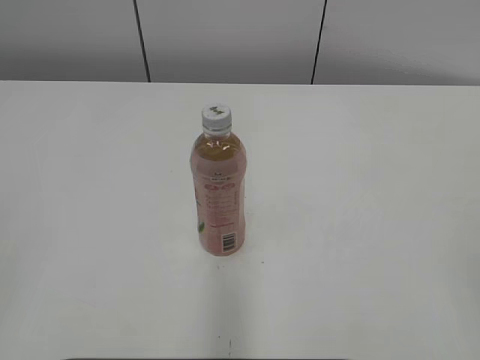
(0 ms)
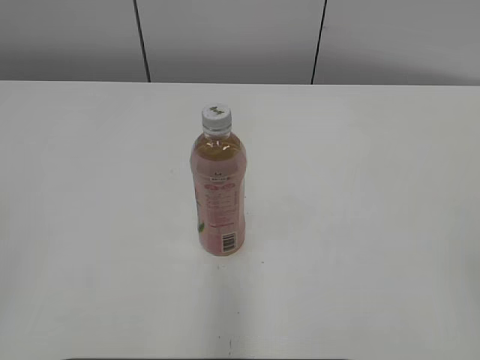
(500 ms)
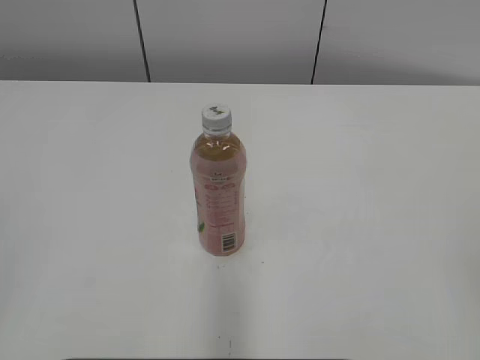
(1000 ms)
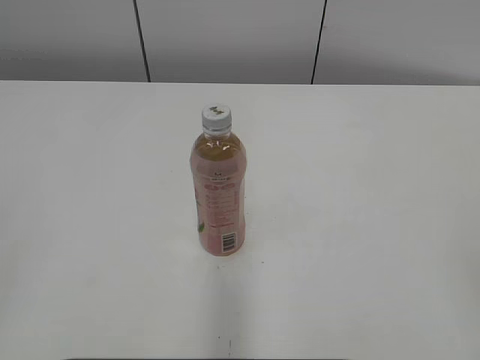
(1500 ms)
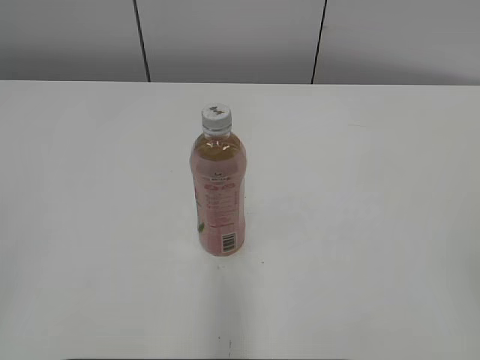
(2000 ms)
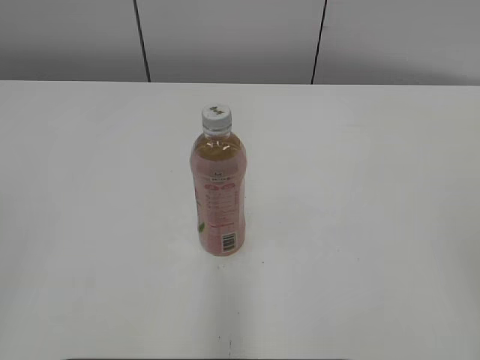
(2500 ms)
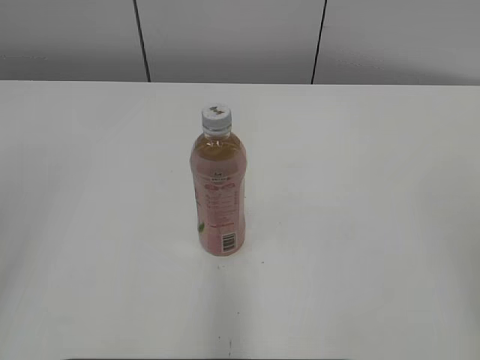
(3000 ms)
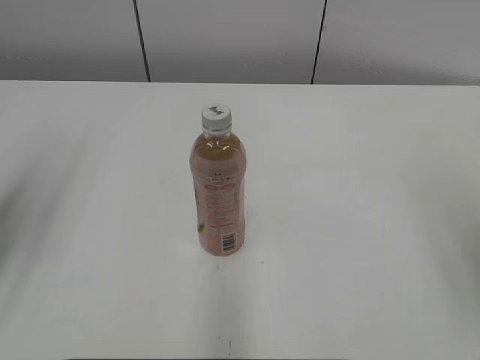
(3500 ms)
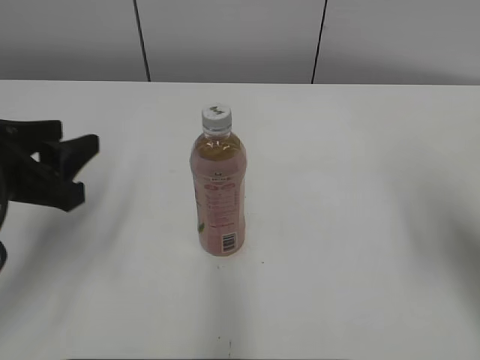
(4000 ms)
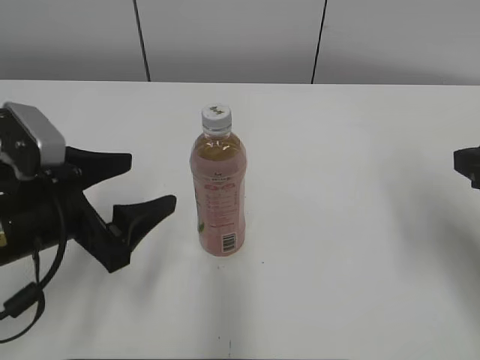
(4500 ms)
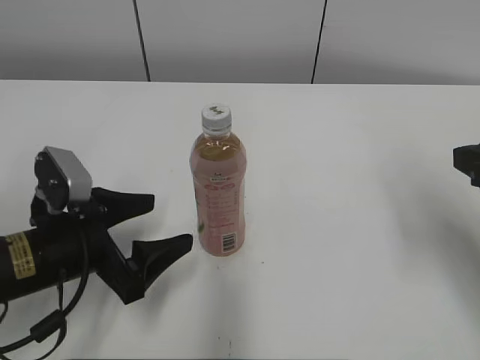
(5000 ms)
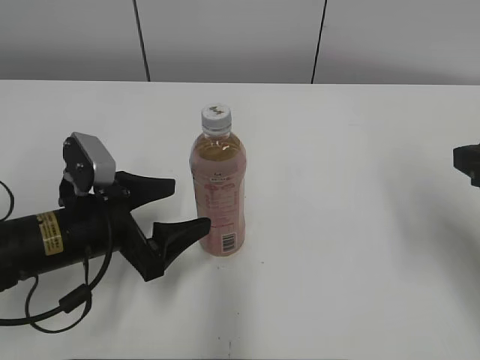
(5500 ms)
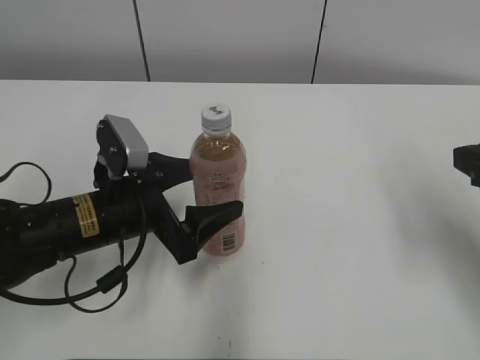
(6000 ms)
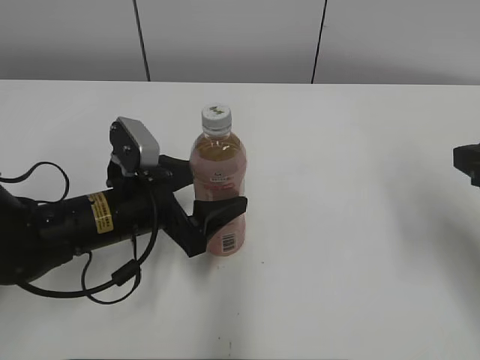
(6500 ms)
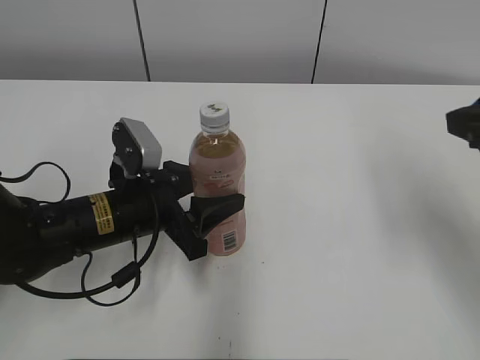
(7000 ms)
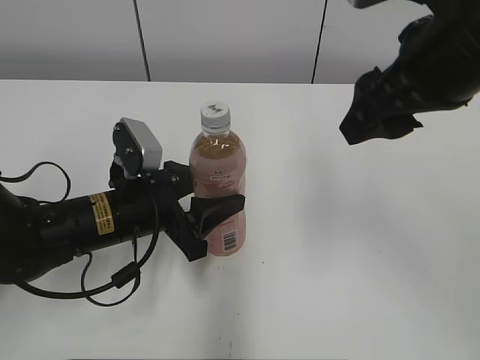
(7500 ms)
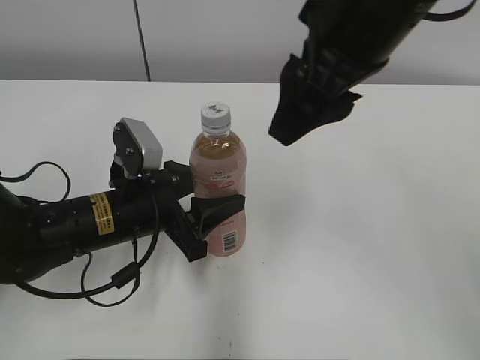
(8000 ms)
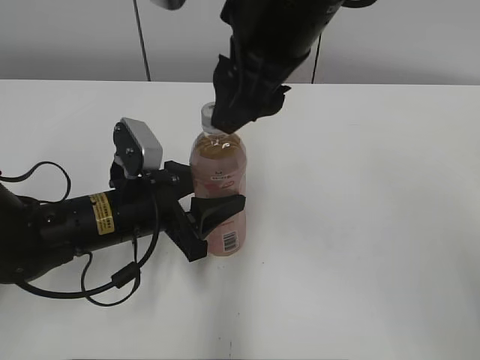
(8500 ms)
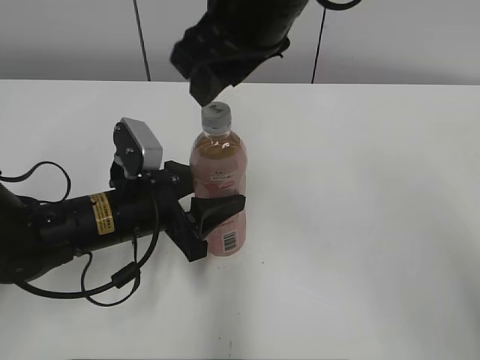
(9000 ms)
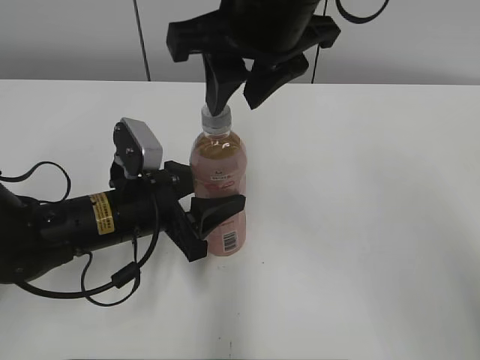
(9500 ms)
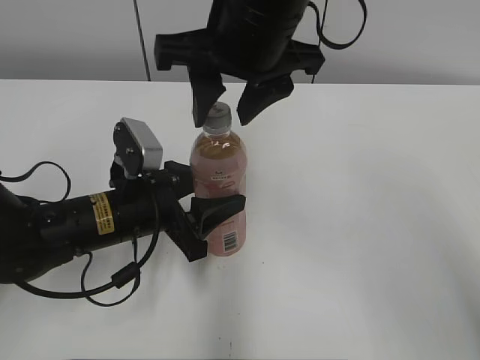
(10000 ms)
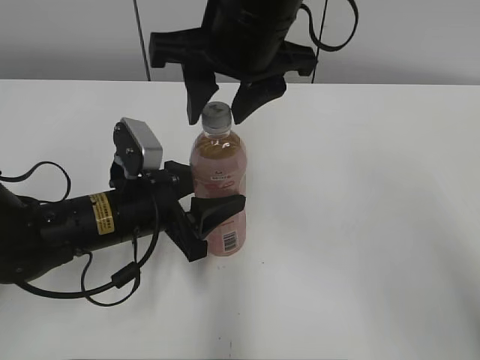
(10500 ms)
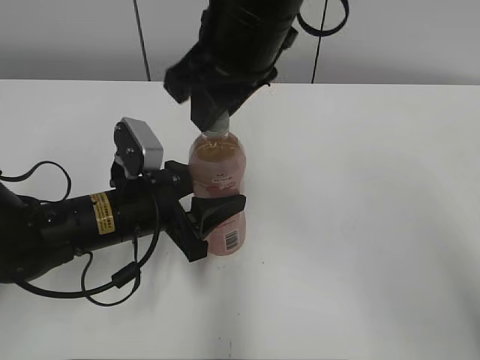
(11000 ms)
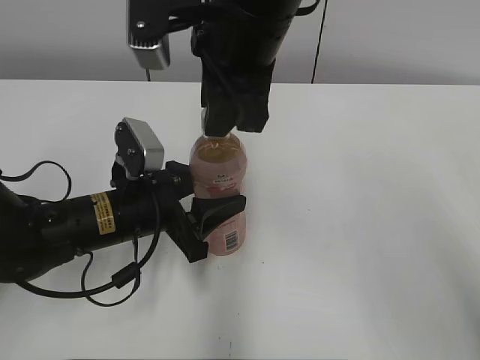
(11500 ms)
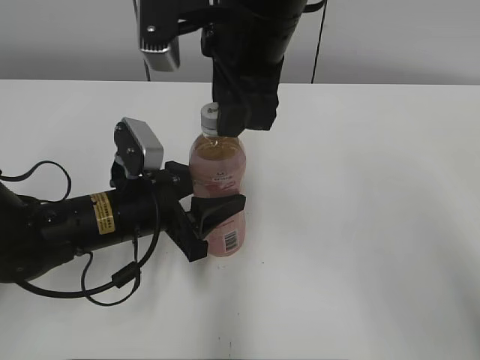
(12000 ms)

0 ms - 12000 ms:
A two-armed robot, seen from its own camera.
Step, 0 ms - 6500 ms: Grab the Peach Oolong Tea with the left hand.
2000 ms - 4000 ms: The left gripper heads forward and downward, covering about 25 cm. The right gripper goes some 20 cm forward.
4000 ms - 6000 ms: The left gripper is displaced to the right and downward by approximately 15 cm, and opens.
6000 ms - 8000 ms: The right gripper is displaced to the left and upward by roughly 20 cm. The left gripper closes its fingers.
8000 ms - 10000 ms: The right gripper shifts roughly 5 cm to the left.

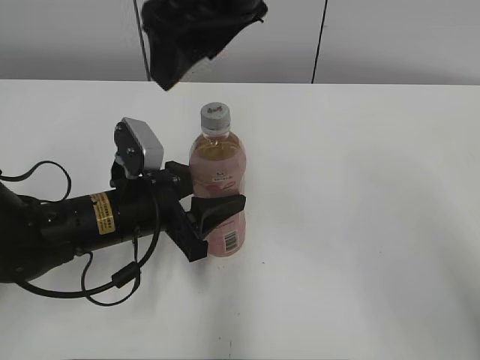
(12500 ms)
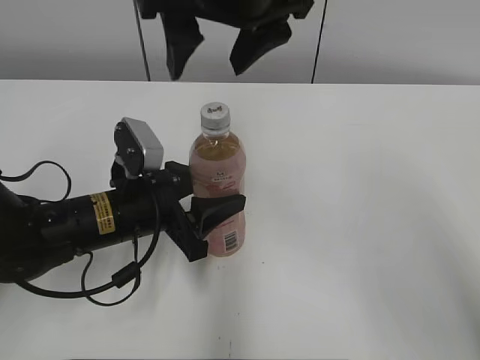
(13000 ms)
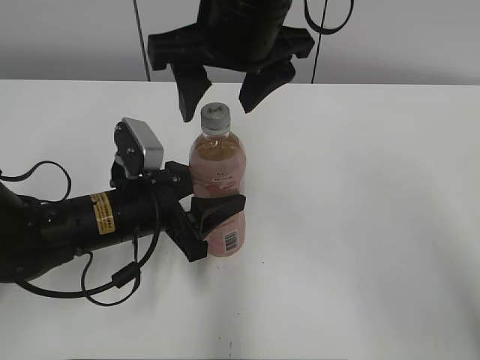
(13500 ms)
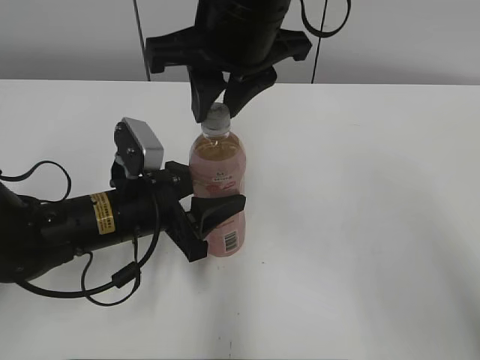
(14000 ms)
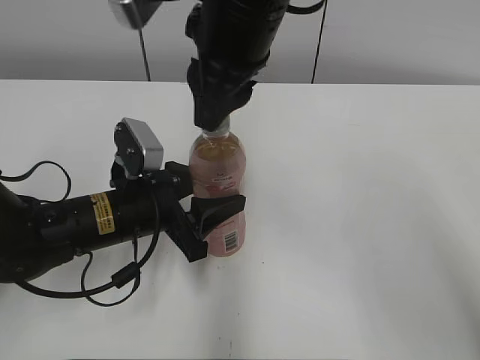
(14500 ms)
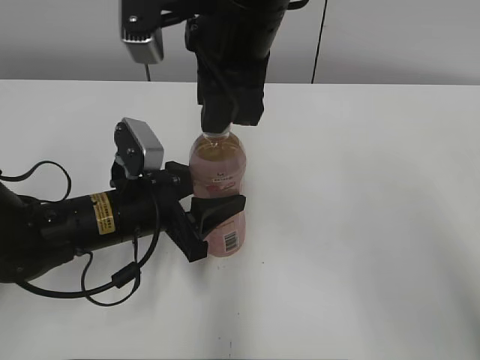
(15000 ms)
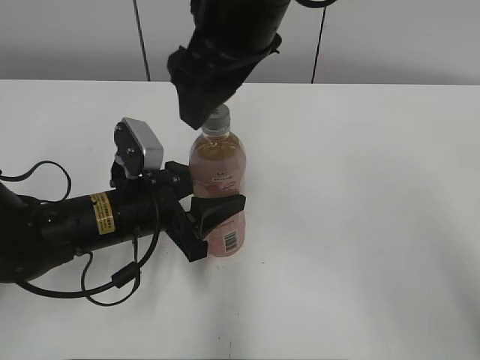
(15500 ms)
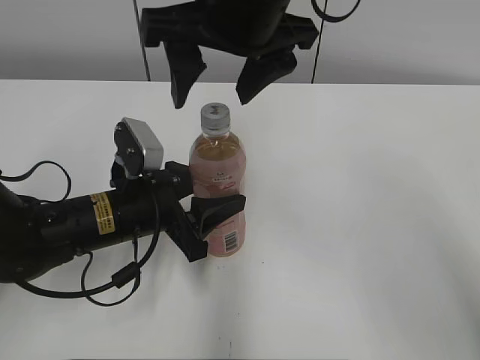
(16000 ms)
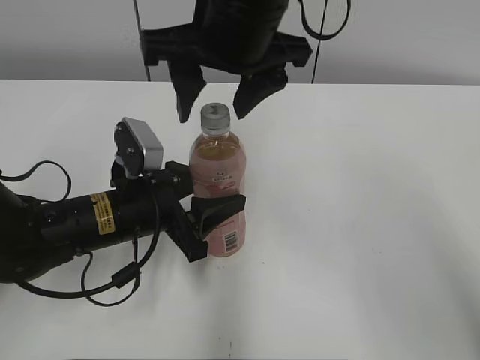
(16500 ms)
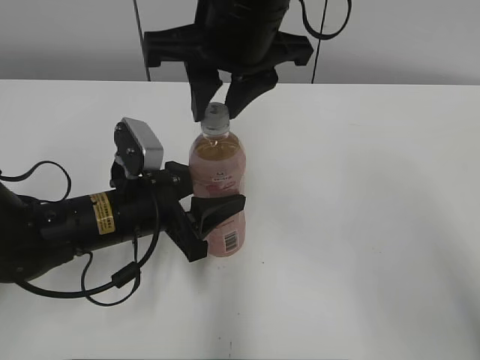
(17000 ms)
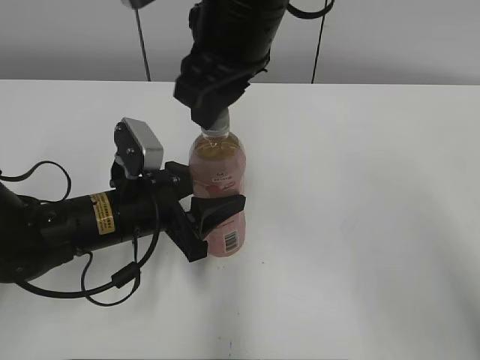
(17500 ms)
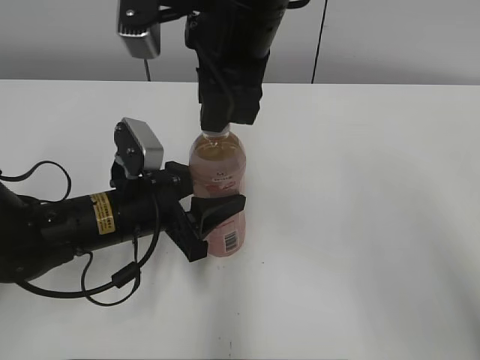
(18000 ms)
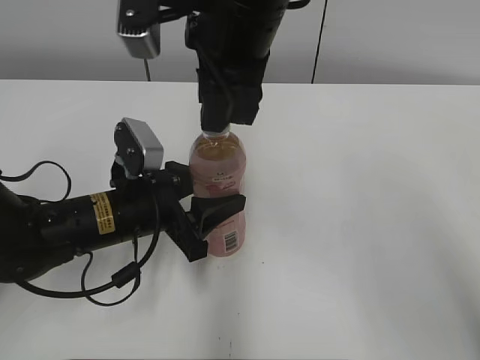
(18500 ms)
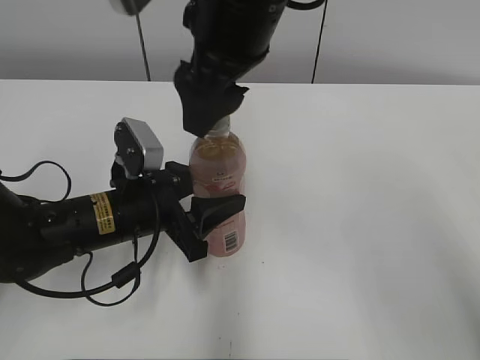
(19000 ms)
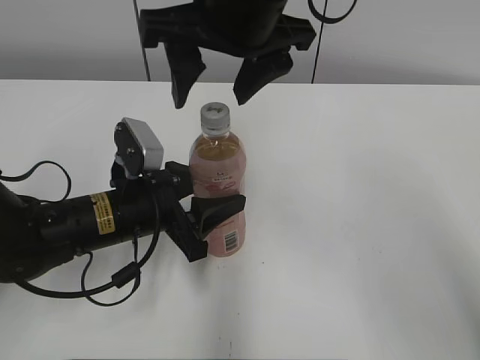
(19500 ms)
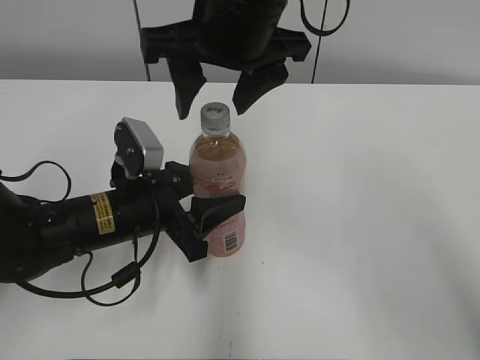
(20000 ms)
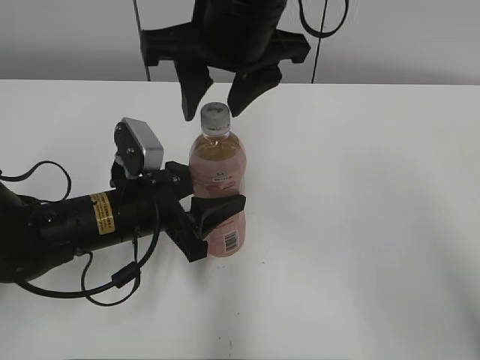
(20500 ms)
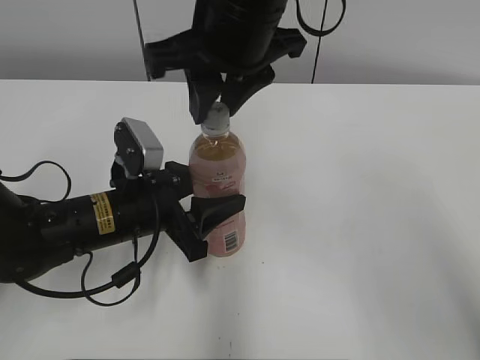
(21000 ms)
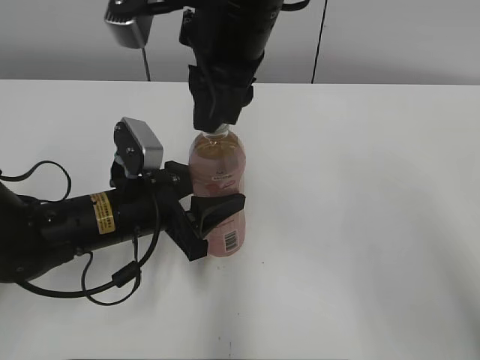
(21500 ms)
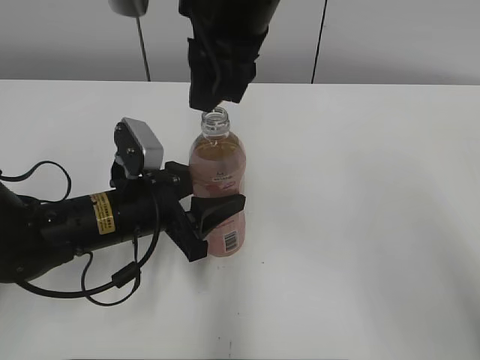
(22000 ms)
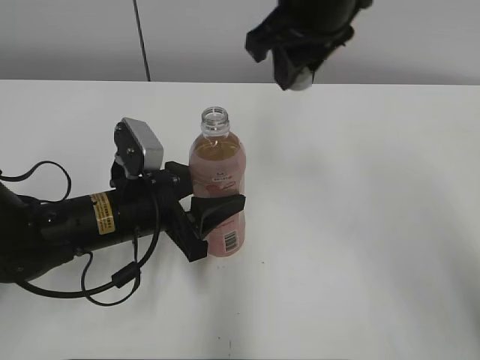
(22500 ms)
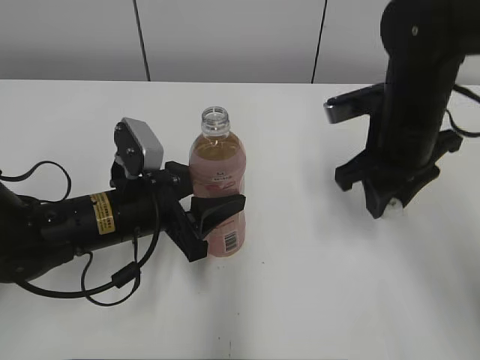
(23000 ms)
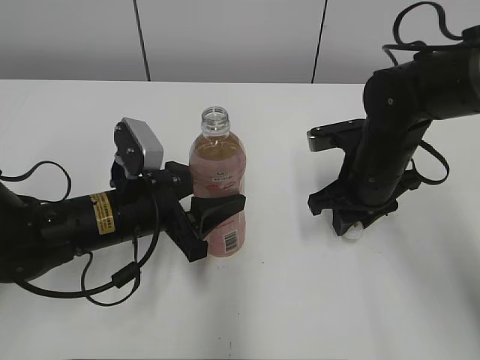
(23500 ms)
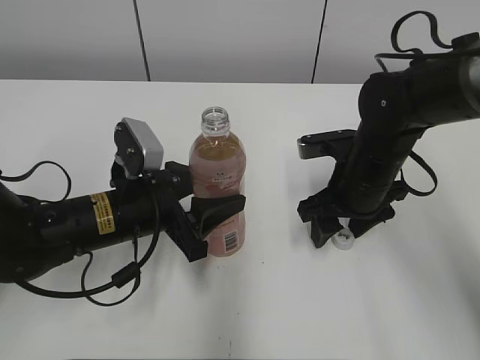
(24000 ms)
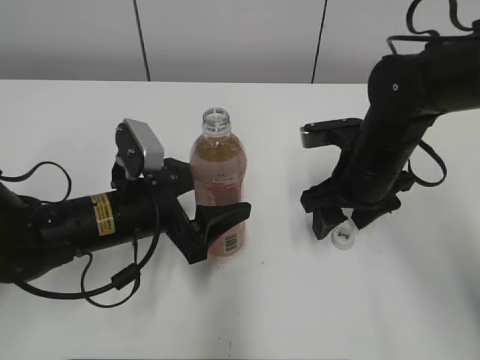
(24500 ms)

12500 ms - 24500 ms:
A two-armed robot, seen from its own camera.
Step, 22000 ms - 23500 ms: Place the bottle cap on the right.
12500 ms - 14500 ms: The right gripper closes its fingers.
14500 ms - 16500 ms: The right gripper opens its fingers.
16500 ms - 18500 ms: The right gripper closes up.
18500 ms - 20500 ms: The right gripper opens up.
20500 ms - 22500 ms: The right gripper moves to the right, approximately 5 cm, and closes.
22500 ms - 24500 ms: The left gripper opens its fingers. The right gripper goes approximately 20 cm downward and to the right, and opens.

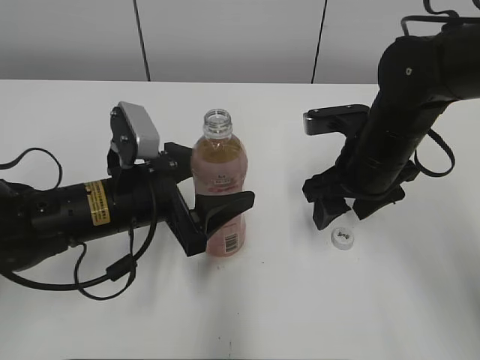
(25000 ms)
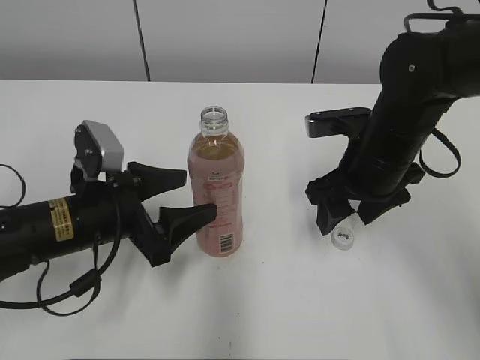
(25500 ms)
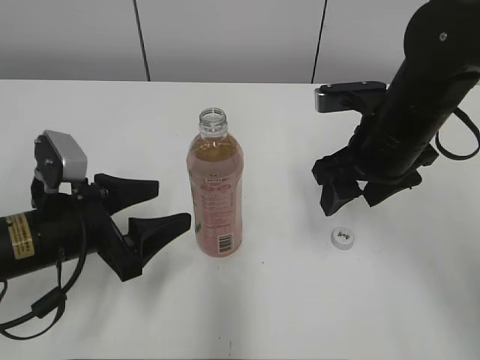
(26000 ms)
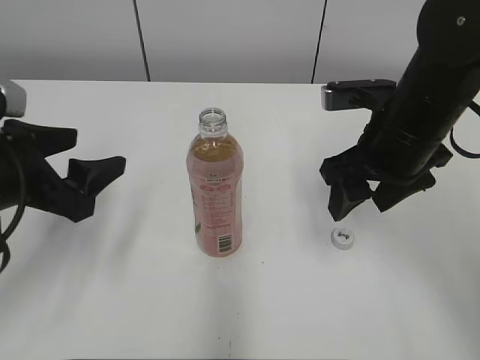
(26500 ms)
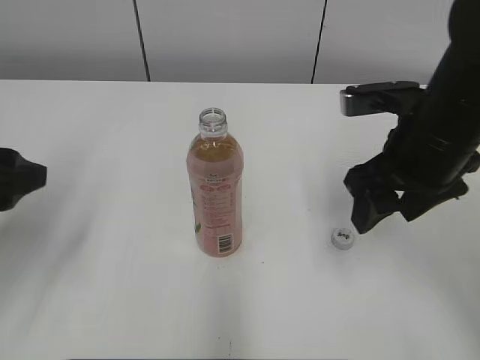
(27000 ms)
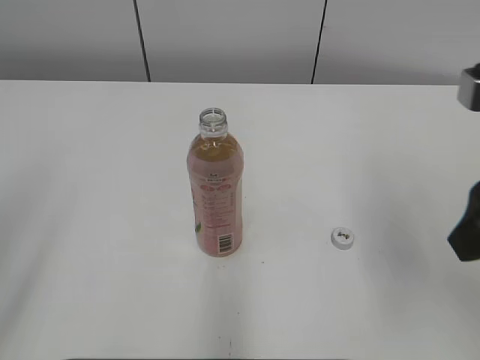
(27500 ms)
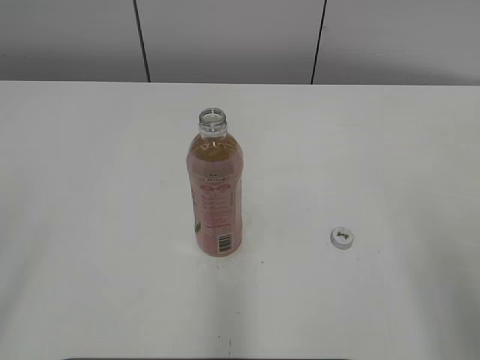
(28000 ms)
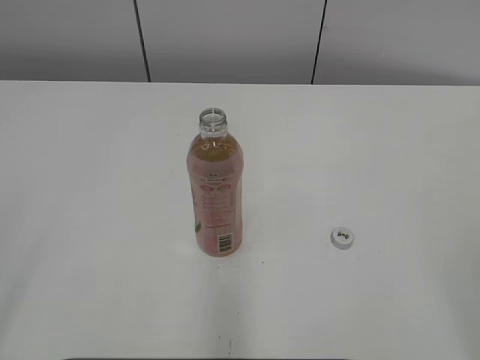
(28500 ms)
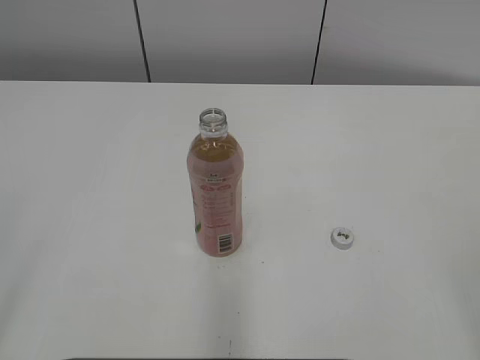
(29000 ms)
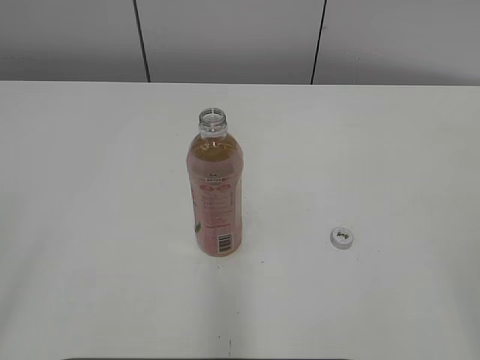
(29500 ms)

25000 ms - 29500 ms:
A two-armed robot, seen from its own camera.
25000 ms - 27000 ms: The left gripper goes some 20 cm to the left, upward and backward; the right gripper heads upward, covering about 5 cm.
27000 ms - 29500 ms: The right gripper heads backward and to the right, covering some 30 cm. The left gripper goes about 20 cm backward, and closes its fingers.
